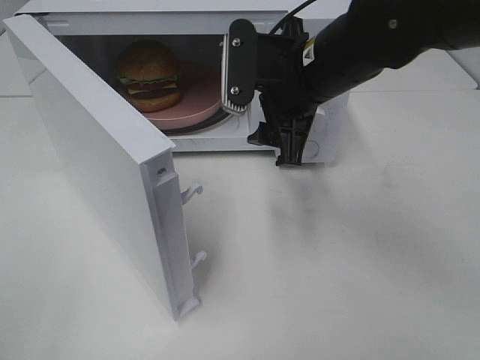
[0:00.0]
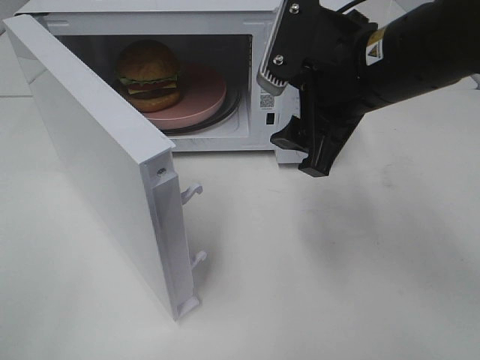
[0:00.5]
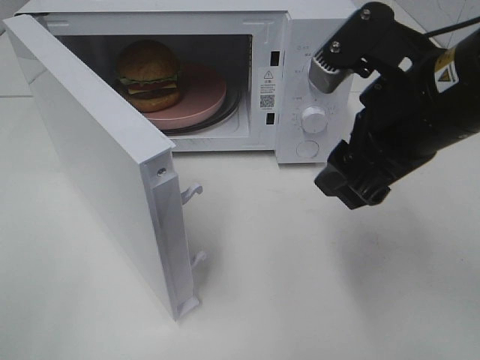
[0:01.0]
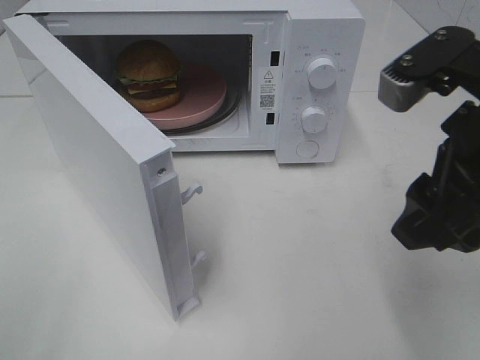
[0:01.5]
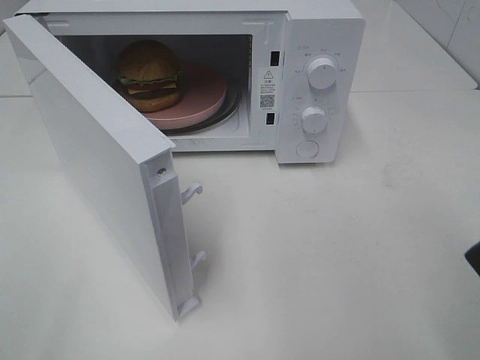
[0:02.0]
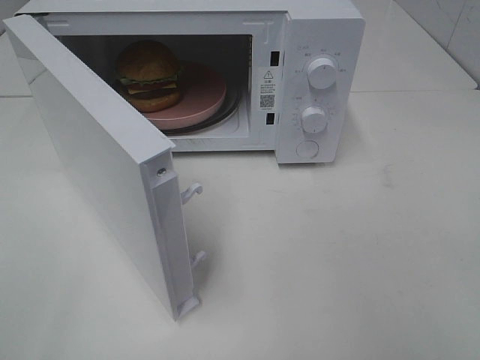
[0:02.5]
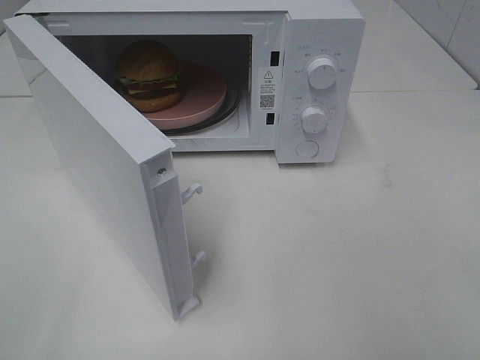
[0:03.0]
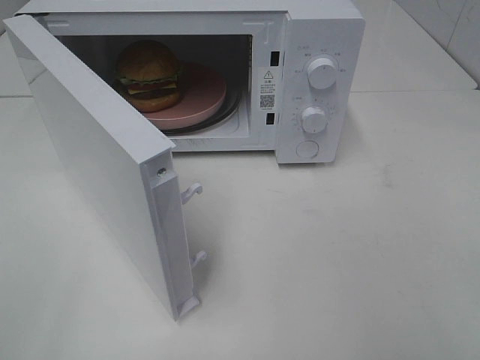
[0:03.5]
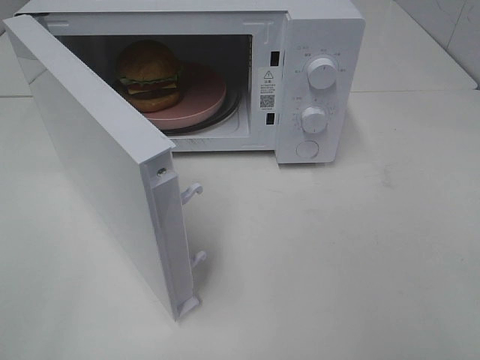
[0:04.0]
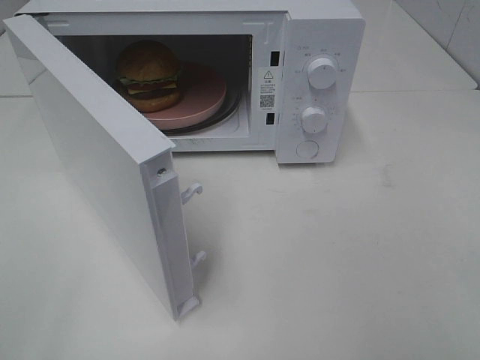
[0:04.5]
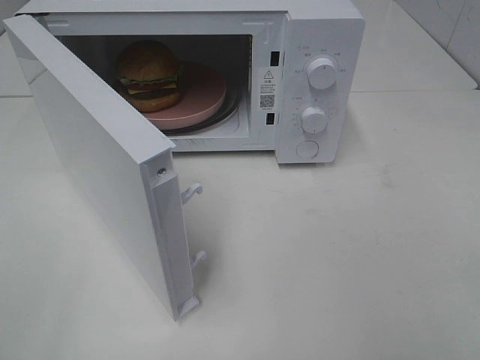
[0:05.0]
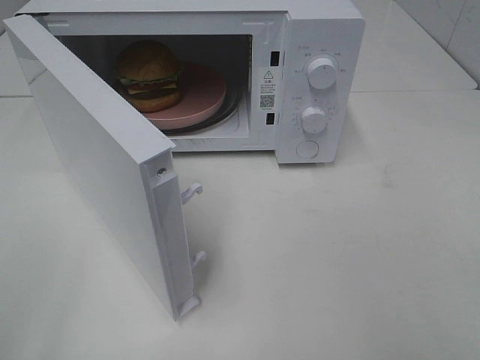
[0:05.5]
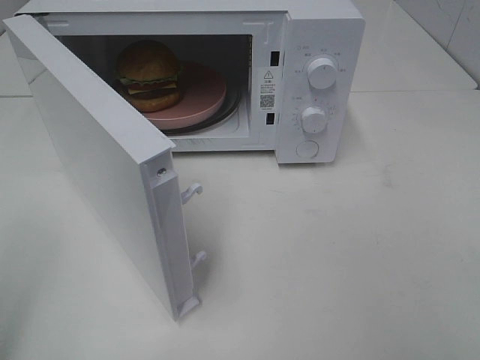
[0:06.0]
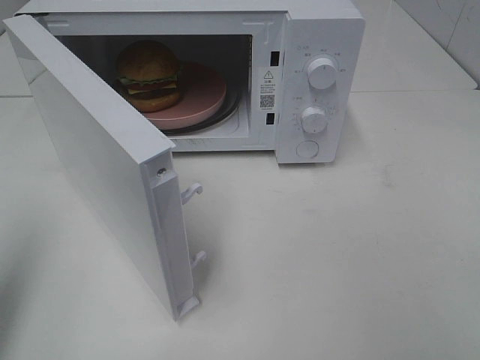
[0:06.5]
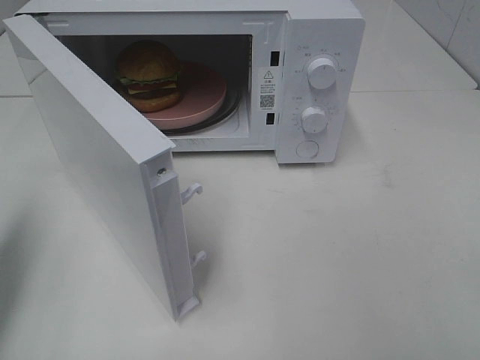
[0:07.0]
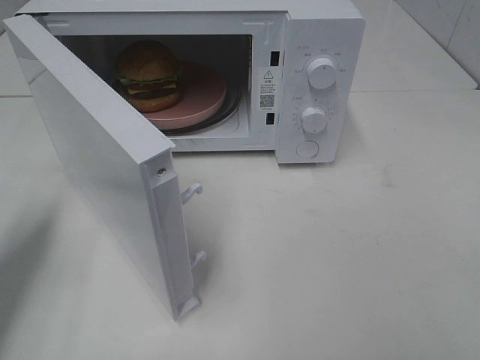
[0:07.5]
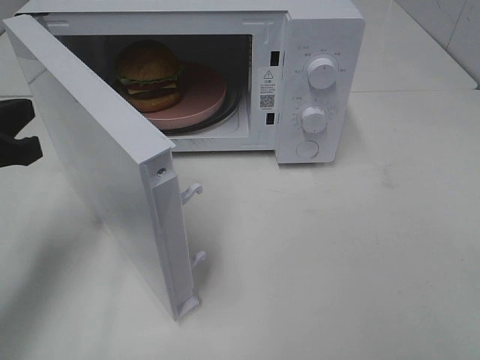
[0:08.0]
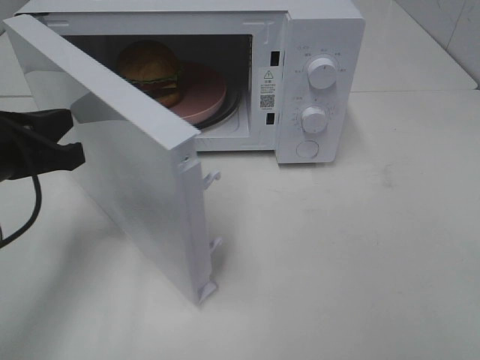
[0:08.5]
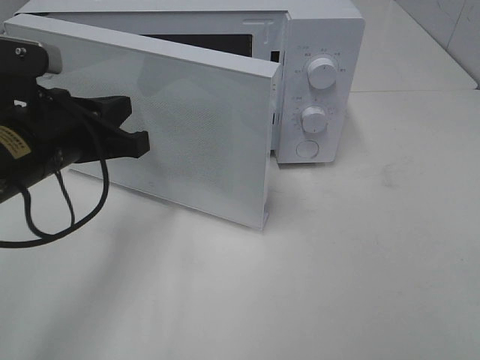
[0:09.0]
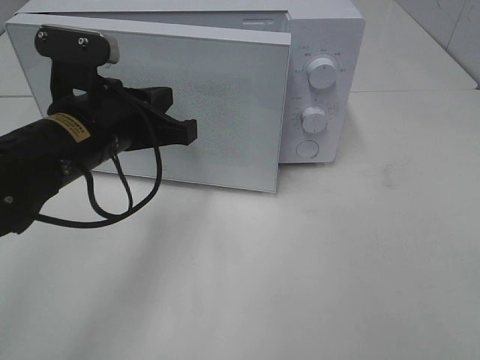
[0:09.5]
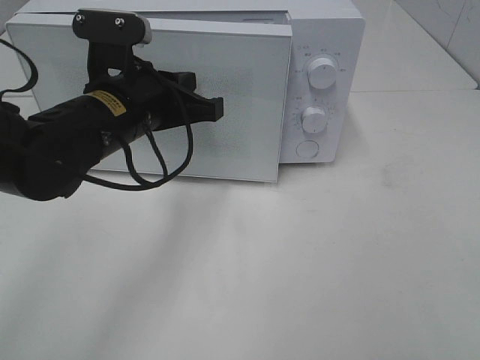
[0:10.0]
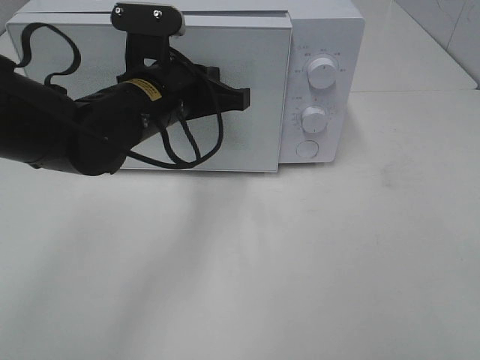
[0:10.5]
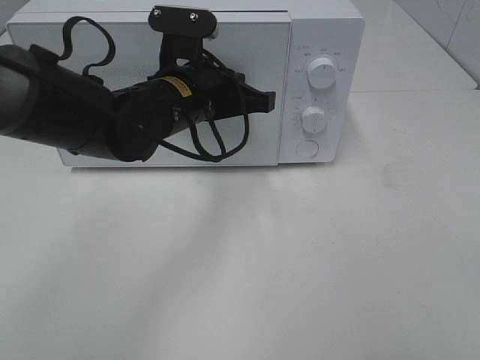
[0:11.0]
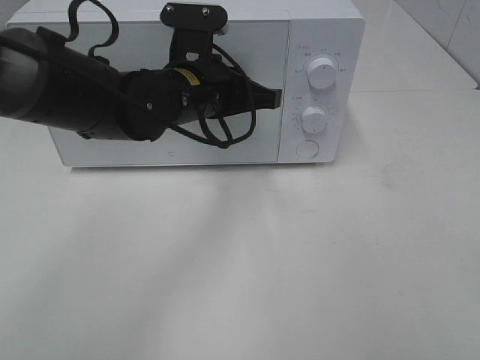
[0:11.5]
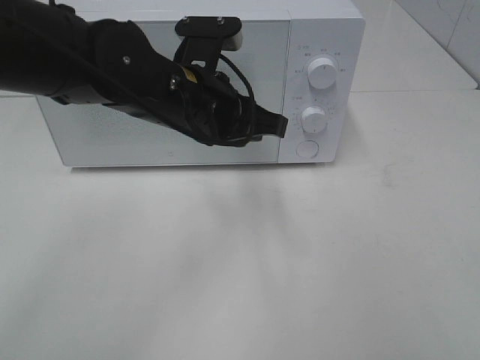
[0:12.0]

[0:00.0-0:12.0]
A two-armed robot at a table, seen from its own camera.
Task of the whole recording: Heat the burger.
Step, 0:00.0 to 0:11.5: Left hand: close the microwave door.
0:00.0 to 0:02.0: The right gripper travels backward and to the right by some 25 cm.
0:06.0 to 0:08.0: The left gripper moves forward and downward, approximately 20 cm.
0:08.0 to 0:10.0: The left gripper heads to the right and forward, covering about 15 cm.
0:10.0 to 0:12.0: The left gripper goes some 5 cm to the right.

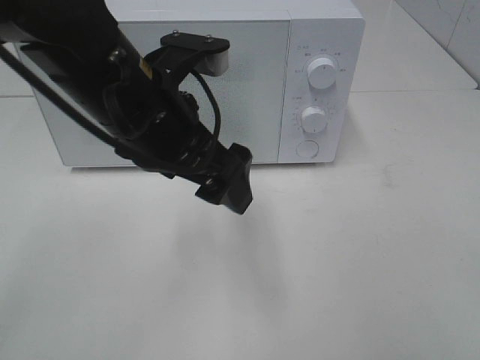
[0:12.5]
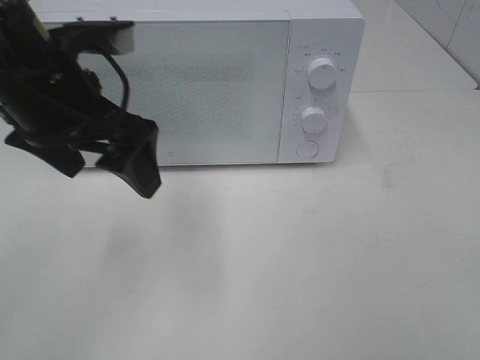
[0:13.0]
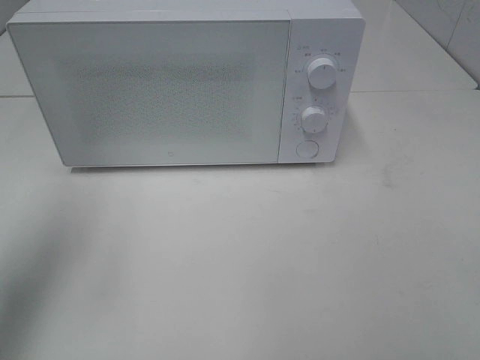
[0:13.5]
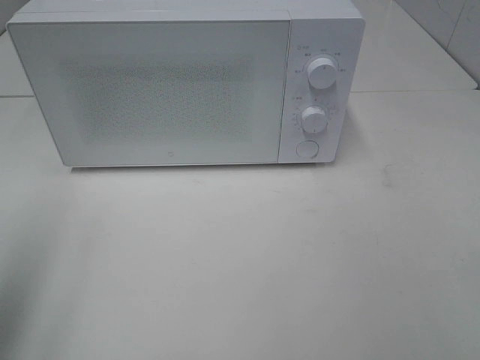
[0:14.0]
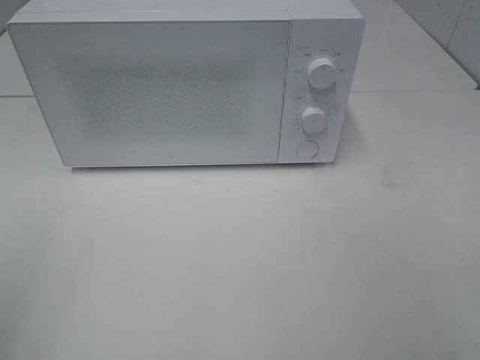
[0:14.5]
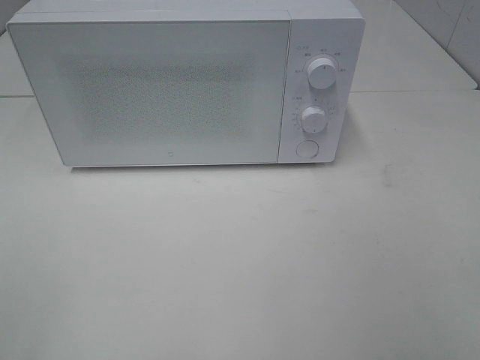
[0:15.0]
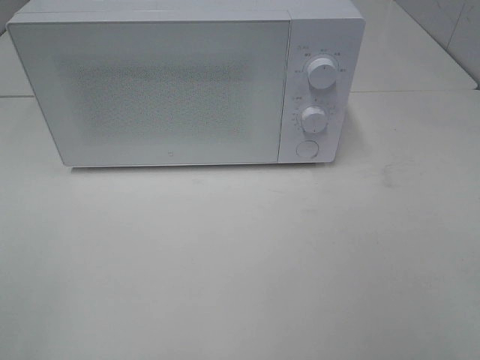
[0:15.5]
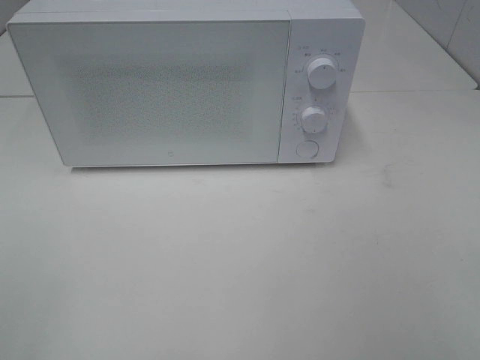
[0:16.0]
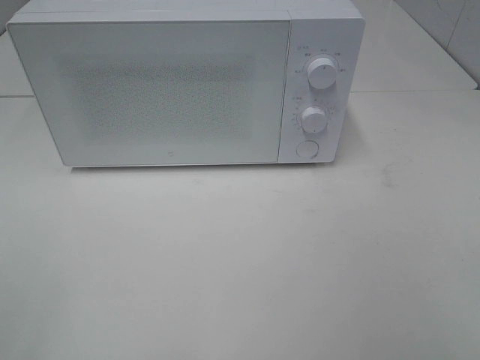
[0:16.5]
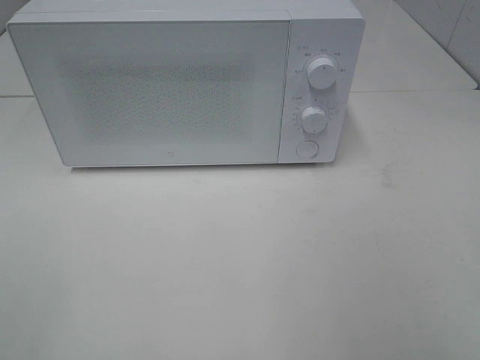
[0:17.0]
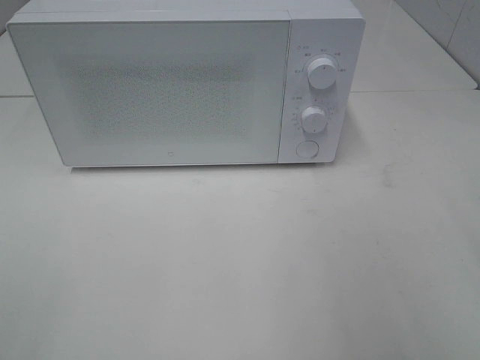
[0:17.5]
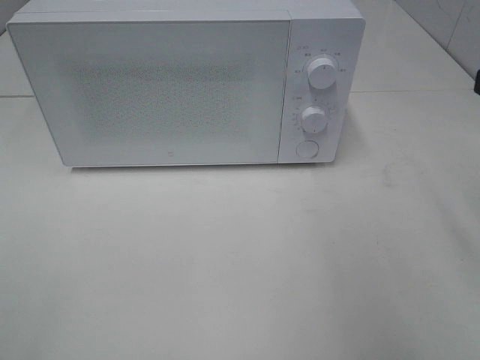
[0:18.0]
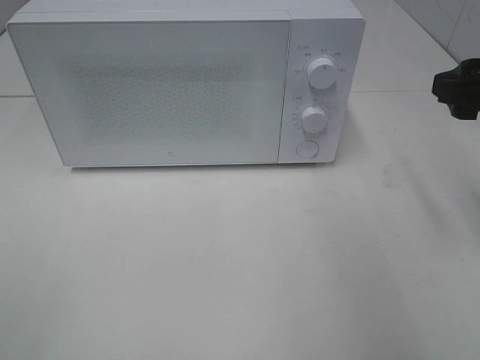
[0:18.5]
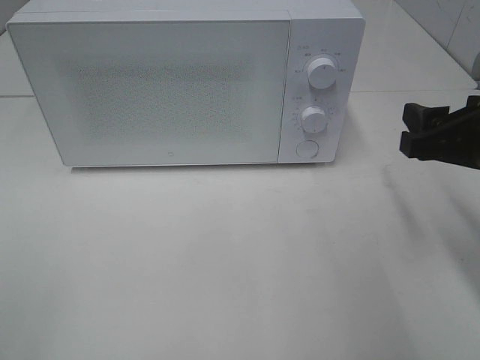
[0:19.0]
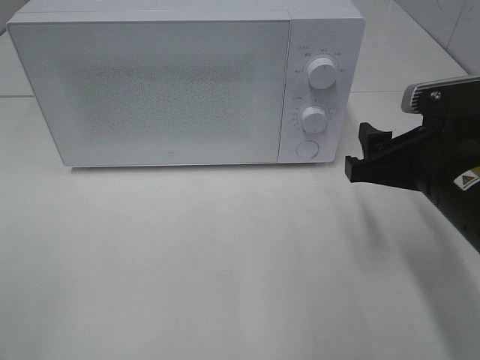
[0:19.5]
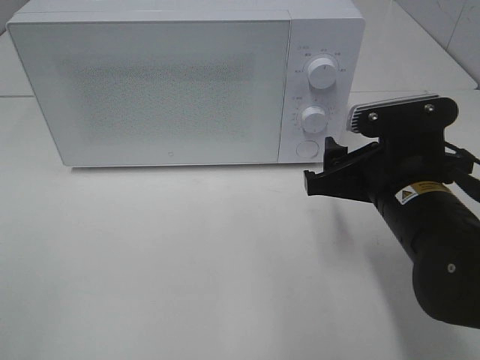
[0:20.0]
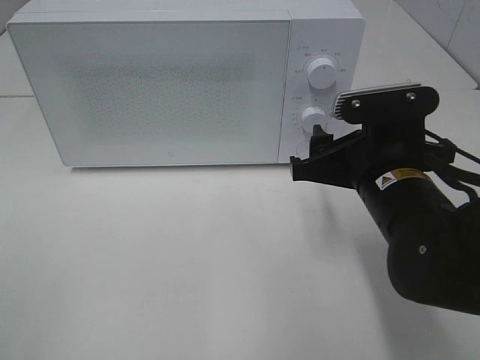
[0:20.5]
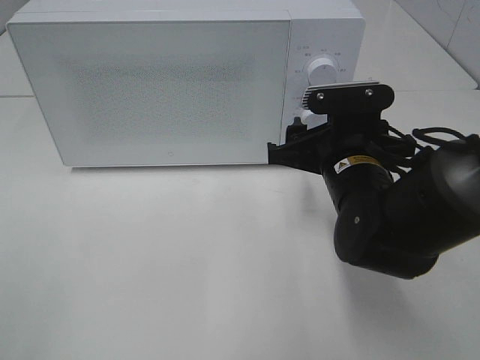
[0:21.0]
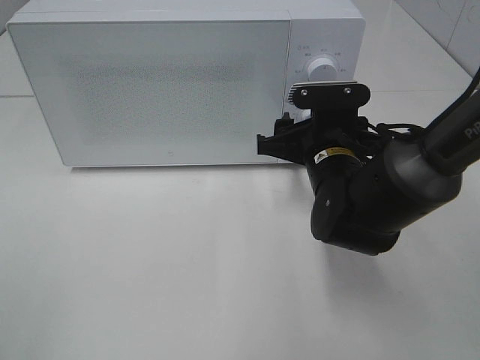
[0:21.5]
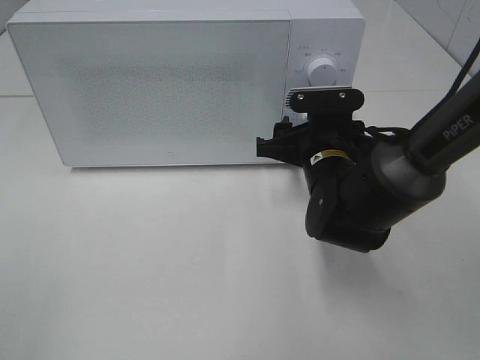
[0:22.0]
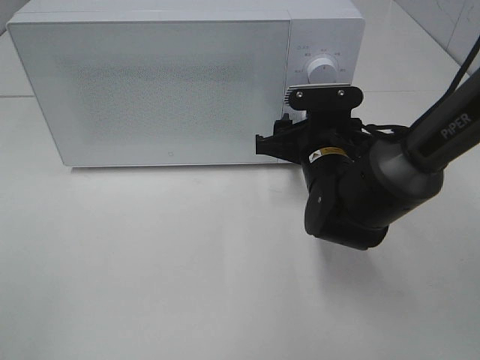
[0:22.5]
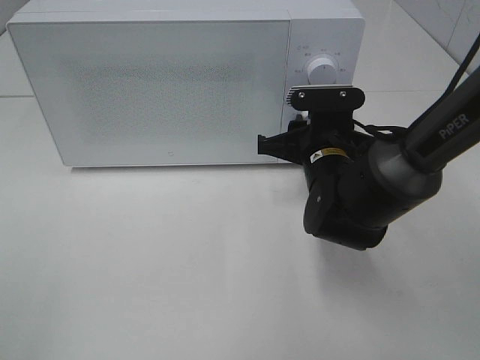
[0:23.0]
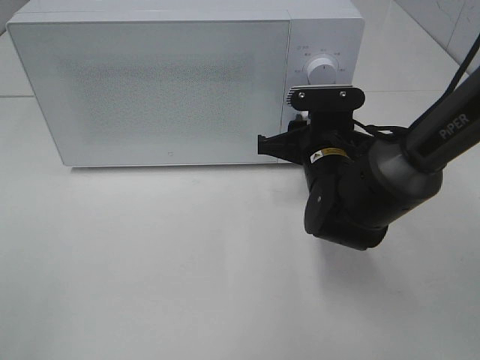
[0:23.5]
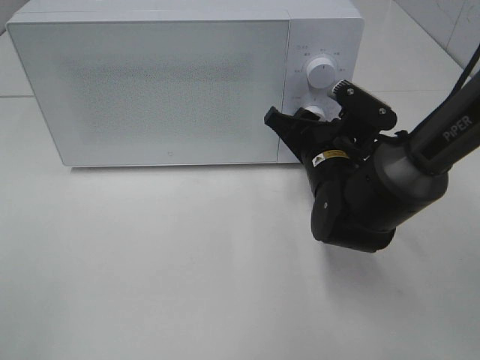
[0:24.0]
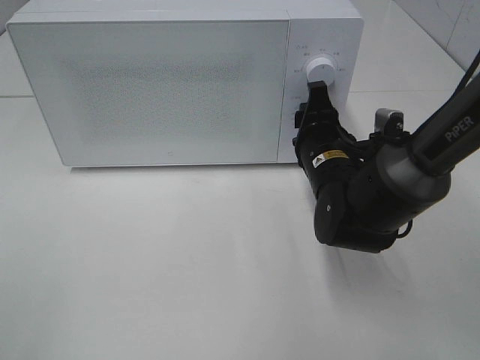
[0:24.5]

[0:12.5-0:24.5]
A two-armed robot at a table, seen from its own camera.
Task of the whole recording: Heat the burger.
0:12.5 to 0:14.5: The left gripper heads to the left and backward, covering about 30 cm.
0:16.5 to 0:18.5: The right gripper heads forward, covering some 25 cm.
0:18.5 to 0:20.5: The right gripper travels to the left and downward by about 15 cm.
0:20.5 to 0:22.5: The right gripper is displaced forward by some 10 cm.

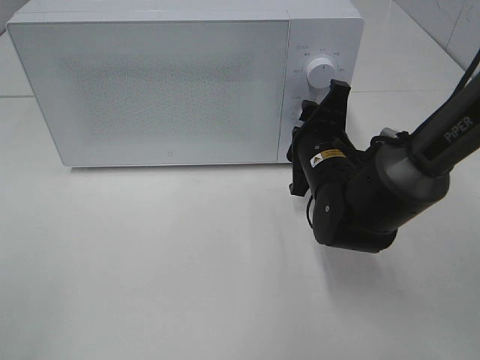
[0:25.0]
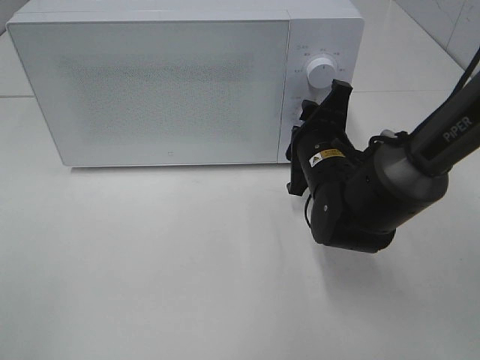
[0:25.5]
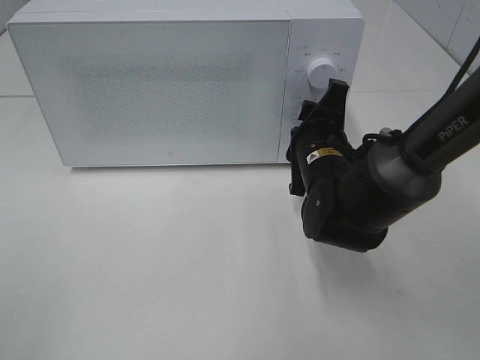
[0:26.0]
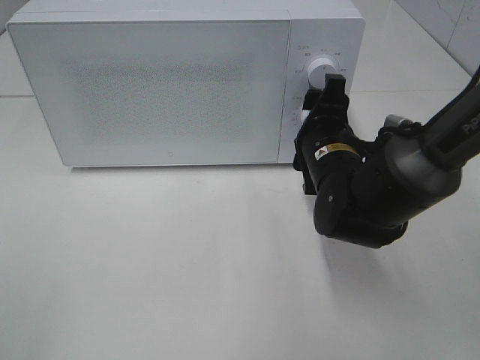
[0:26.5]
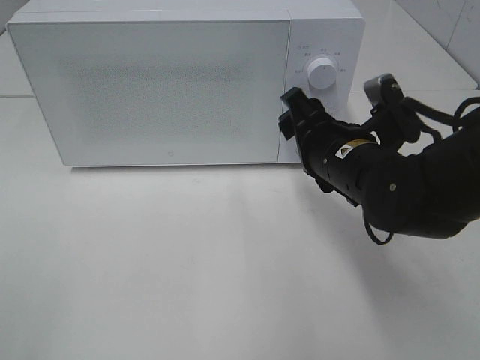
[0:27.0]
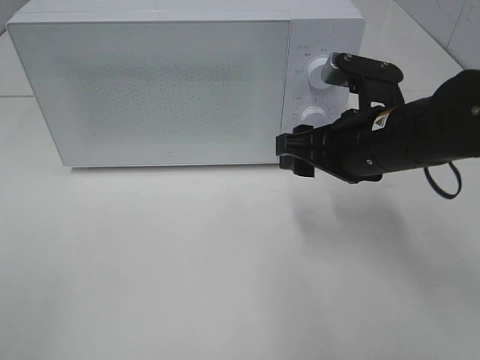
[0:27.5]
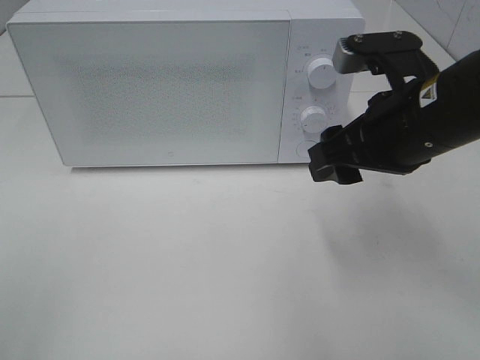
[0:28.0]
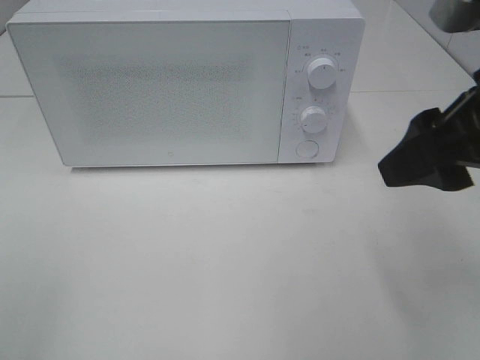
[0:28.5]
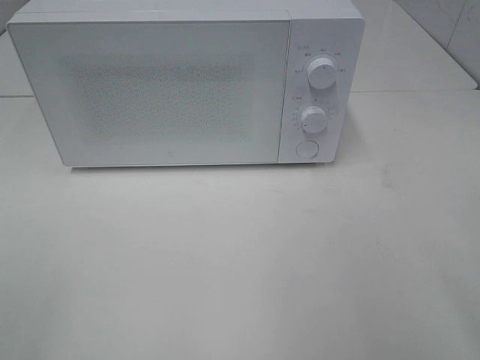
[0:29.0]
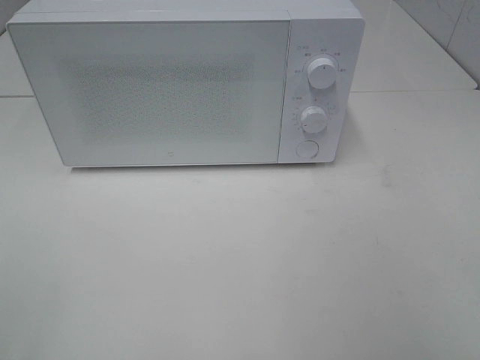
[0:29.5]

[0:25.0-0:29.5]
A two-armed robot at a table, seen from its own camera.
Task of the whole recording: Heat the burger.
0:25.0 to 0:27.0: The right gripper shifts by approximately 5 cm.
0:27.0 to 0:29.5: The right gripper travels backward, to the right and upward by about 35 cm.
